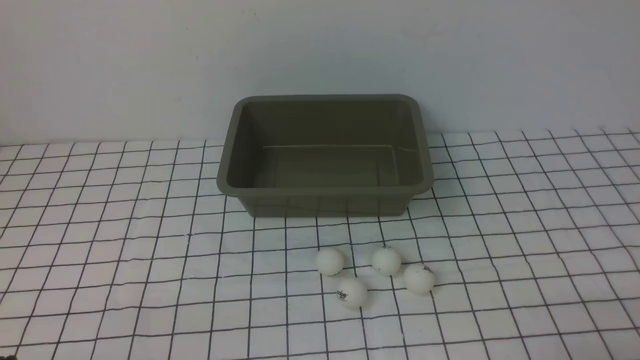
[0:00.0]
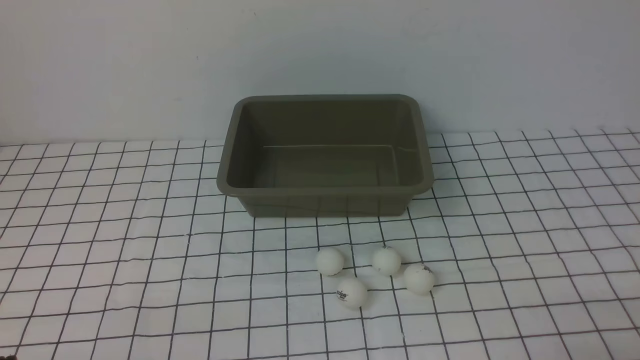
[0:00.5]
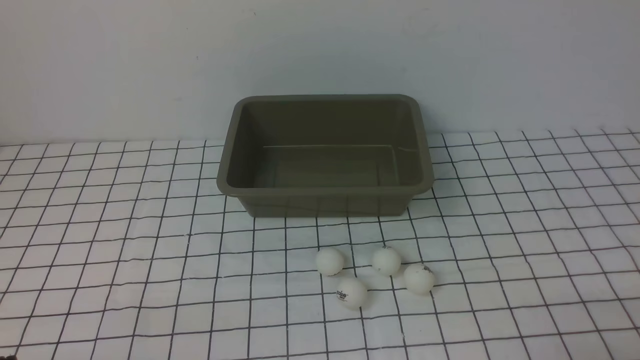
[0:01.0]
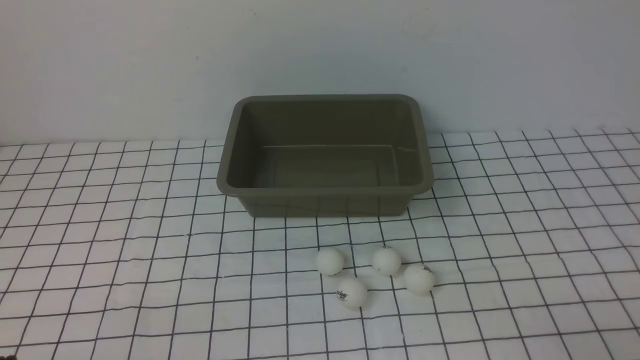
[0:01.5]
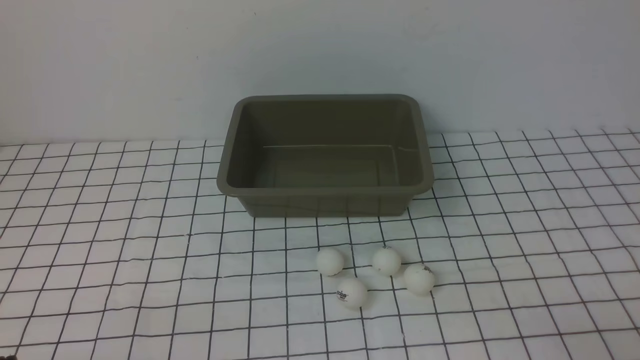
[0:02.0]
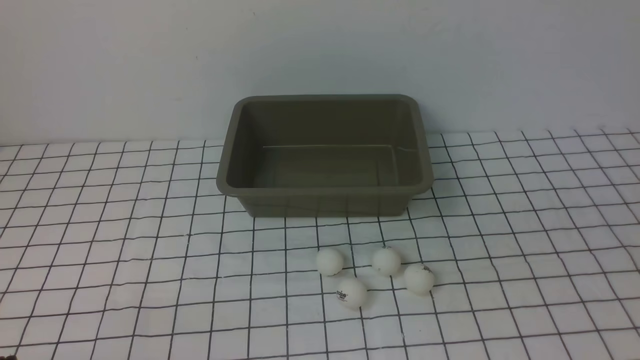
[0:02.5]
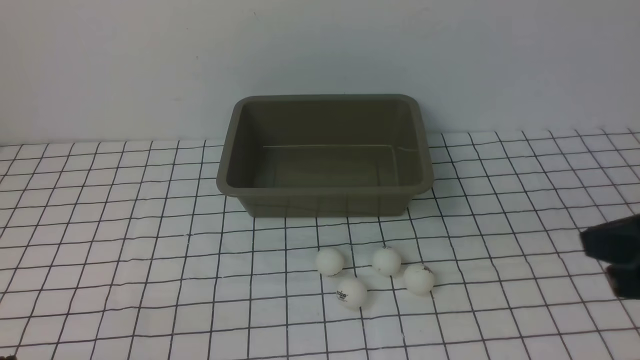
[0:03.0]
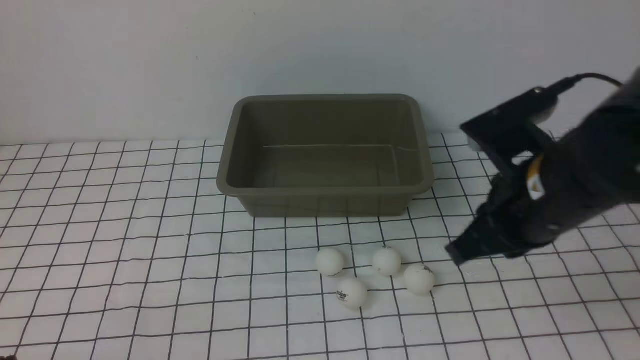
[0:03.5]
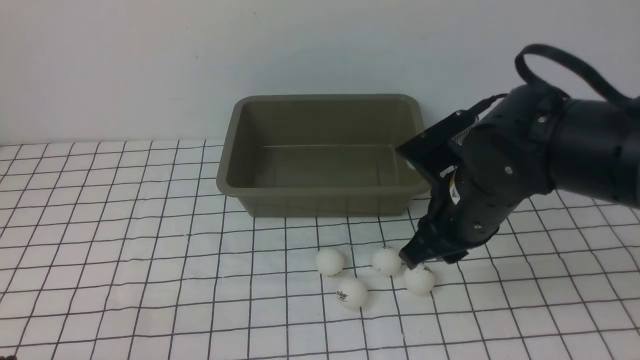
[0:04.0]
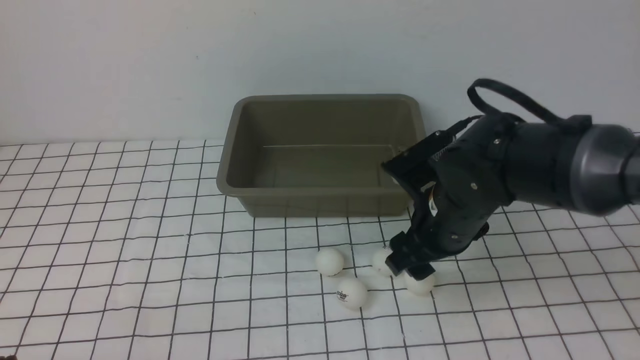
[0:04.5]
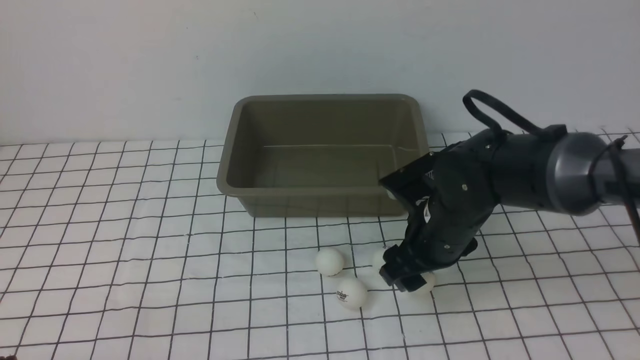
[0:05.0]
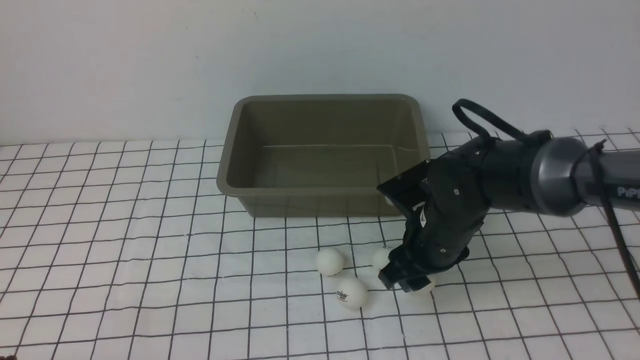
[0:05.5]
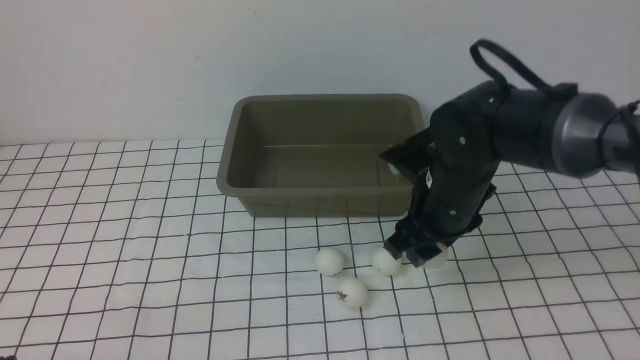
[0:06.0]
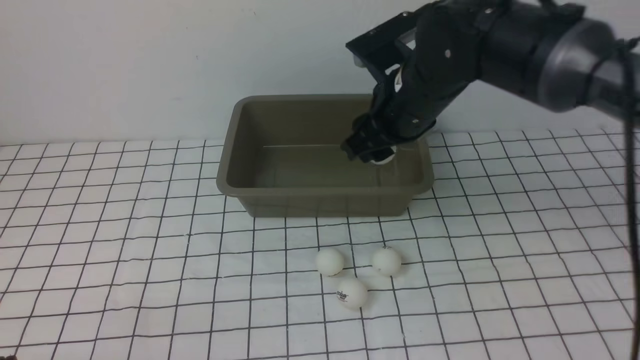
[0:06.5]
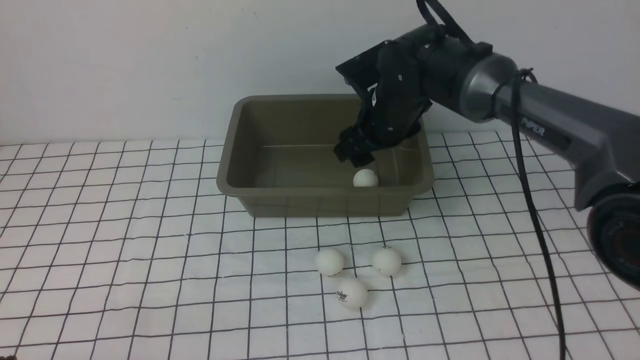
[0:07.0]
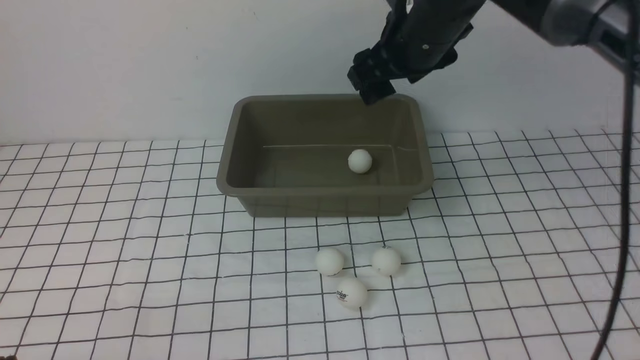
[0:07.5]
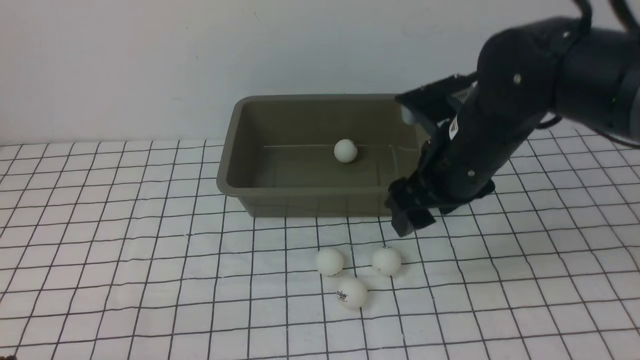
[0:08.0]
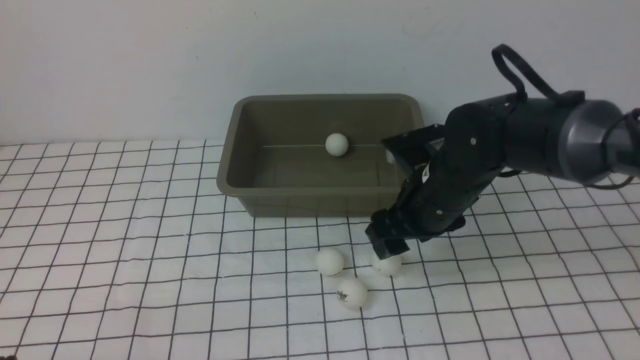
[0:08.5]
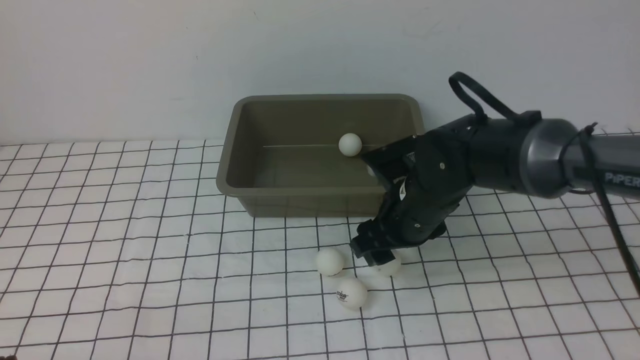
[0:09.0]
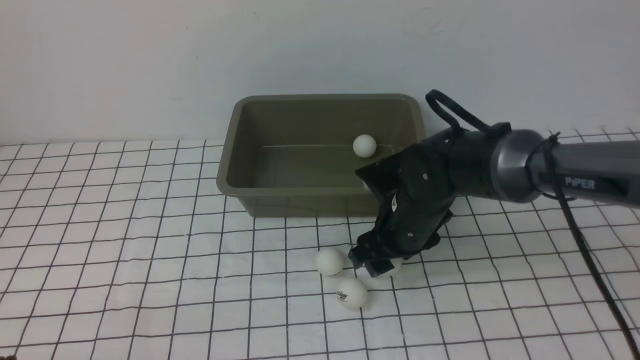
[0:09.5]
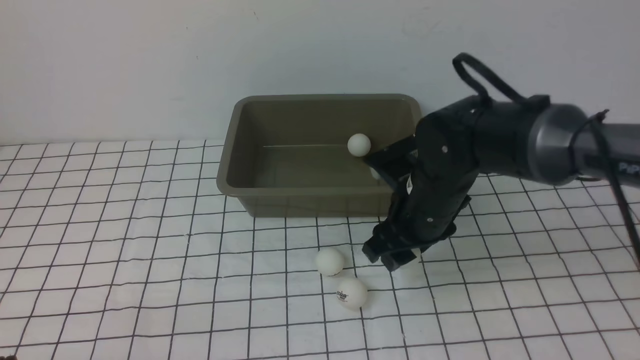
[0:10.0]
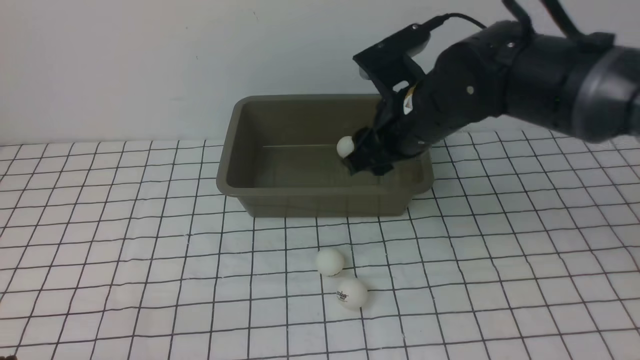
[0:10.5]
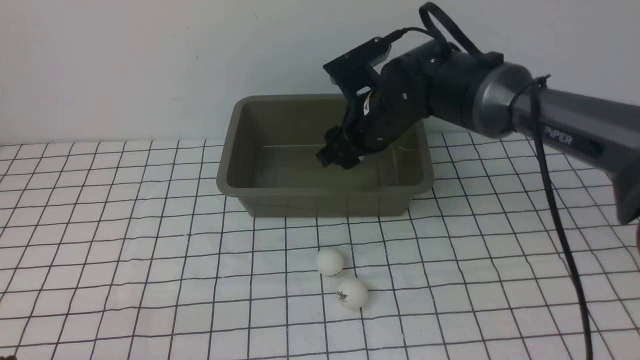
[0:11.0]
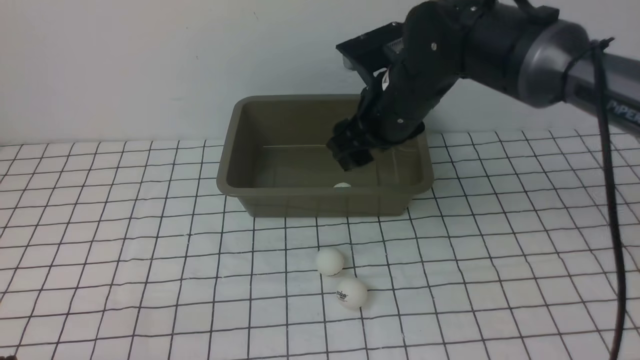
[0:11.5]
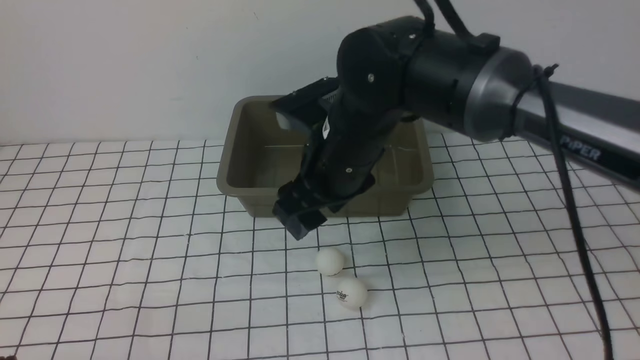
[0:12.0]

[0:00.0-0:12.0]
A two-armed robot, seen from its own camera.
Step, 0:00.0 to 0:05.5: use the right arm to clamp the table tennis ball closest to it.
Step, 0:06.0 to 0:07.0: use the right arm to put the table tennis ball into the box.
Step, 0:07.5 to 0:10.0: use the right arm to clamp the table tennis ball closest to it.
Step, 0:10.5 to 0:11.0: use the right arm to put the table tennis ball into the box.
0:02.0 to 0:04.0: The right gripper is displaced forward and to the left by approximately 30 cm, and opens up.
0:06.0 to 0:08.0: The right gripper travels upward by some 5 cm.
0:08.0 to 0:10.0: The right gripper goes about 5 cm downward.
0:10.0 to 0:12.0: The right gripper moves to the left and upward, some 10 cm, and goes forward and returns, roughly 10 cm each way.

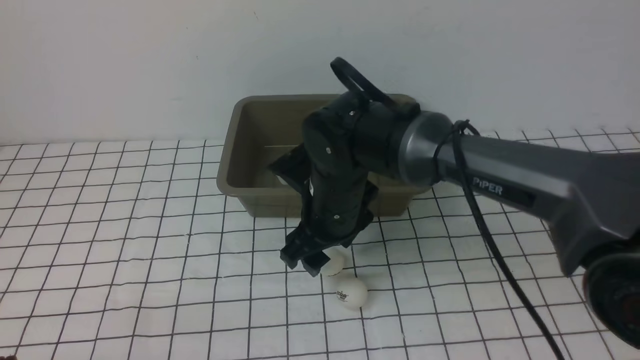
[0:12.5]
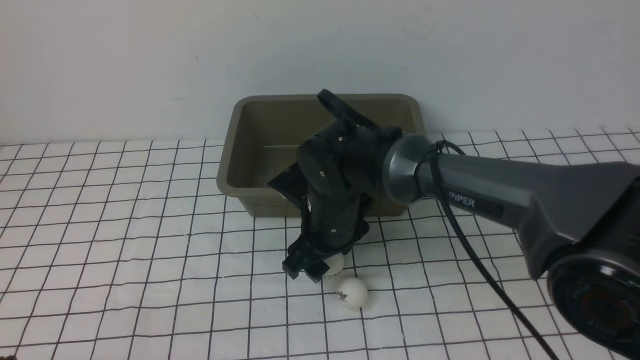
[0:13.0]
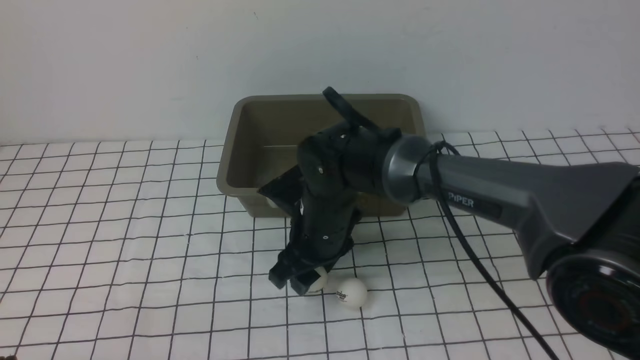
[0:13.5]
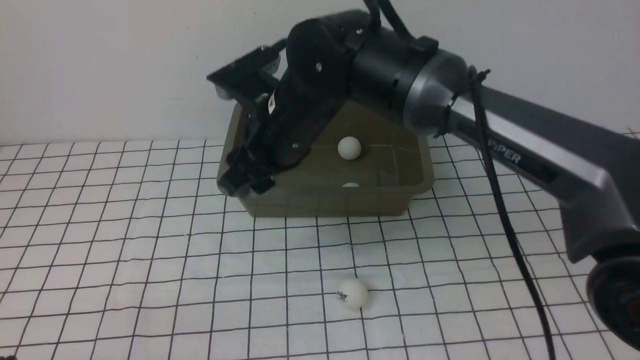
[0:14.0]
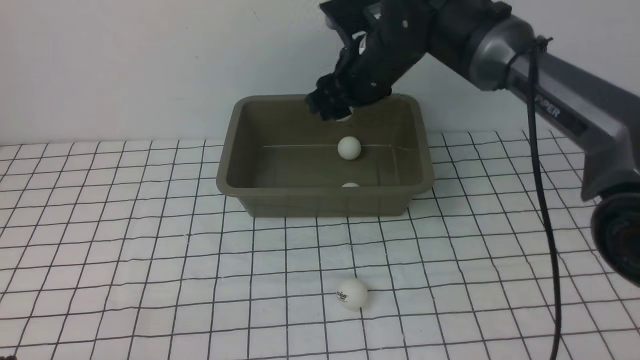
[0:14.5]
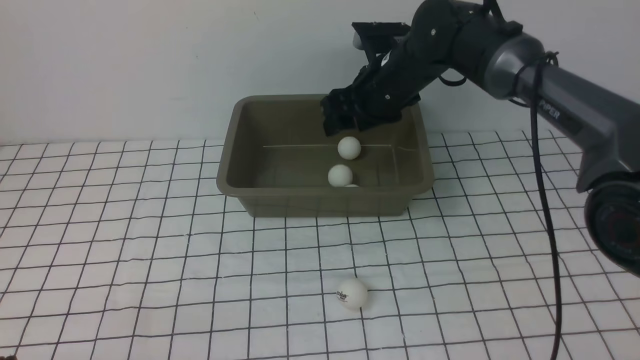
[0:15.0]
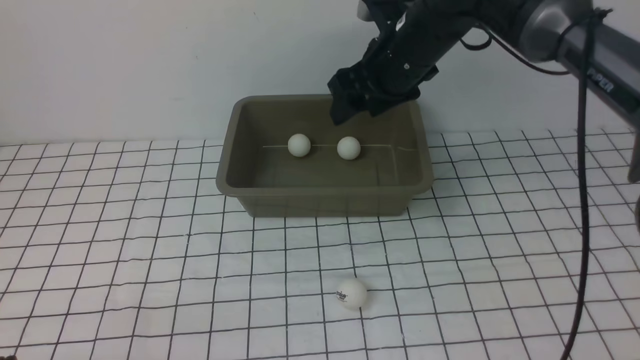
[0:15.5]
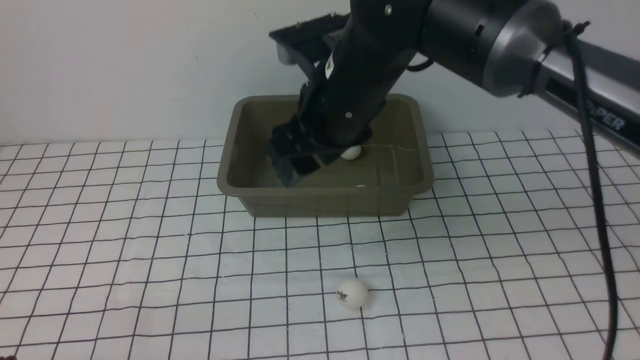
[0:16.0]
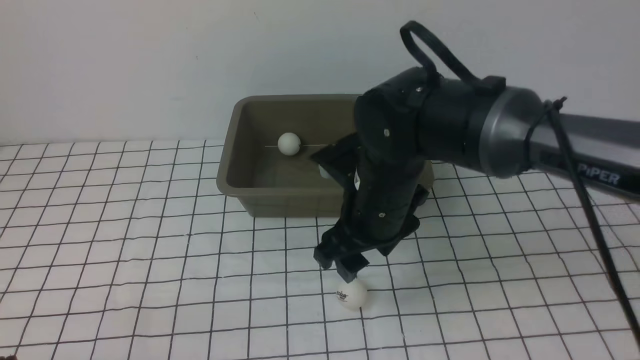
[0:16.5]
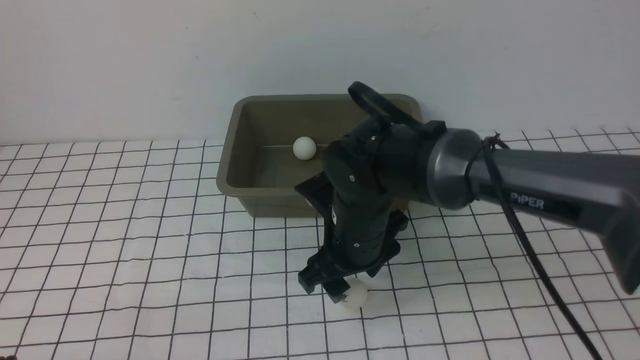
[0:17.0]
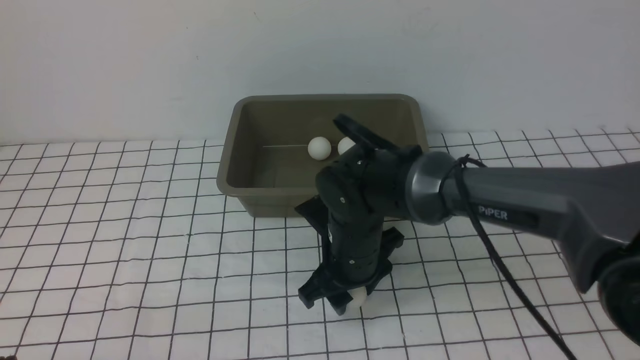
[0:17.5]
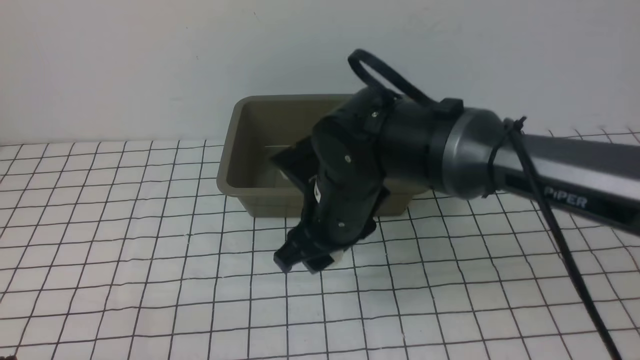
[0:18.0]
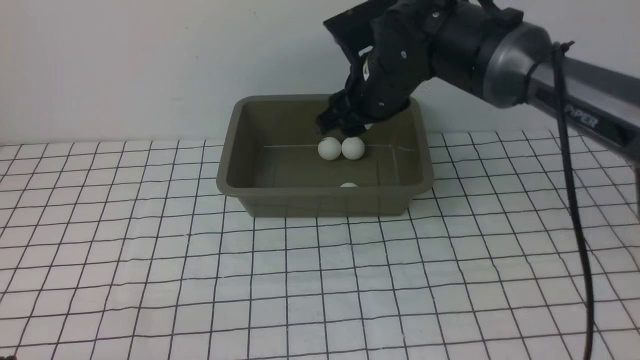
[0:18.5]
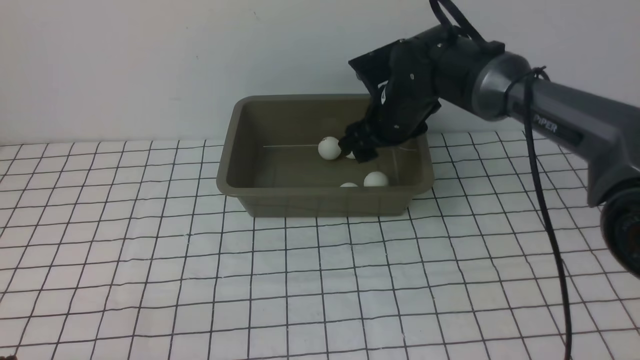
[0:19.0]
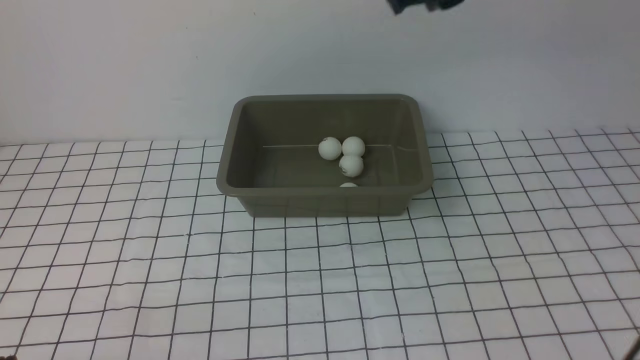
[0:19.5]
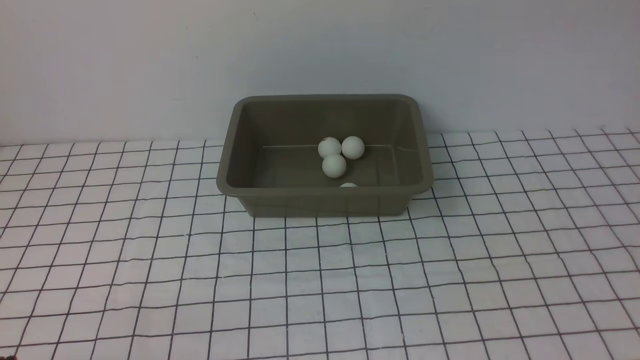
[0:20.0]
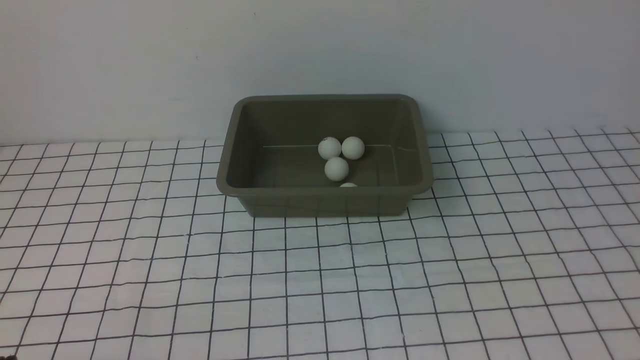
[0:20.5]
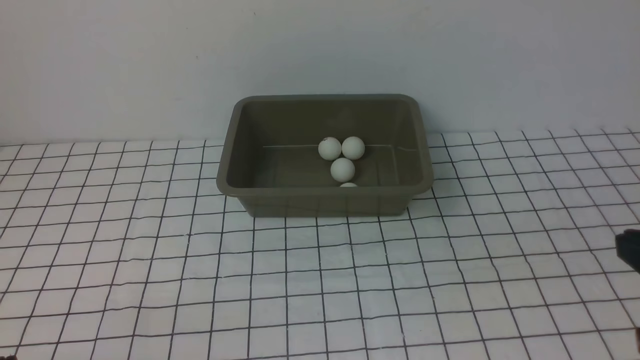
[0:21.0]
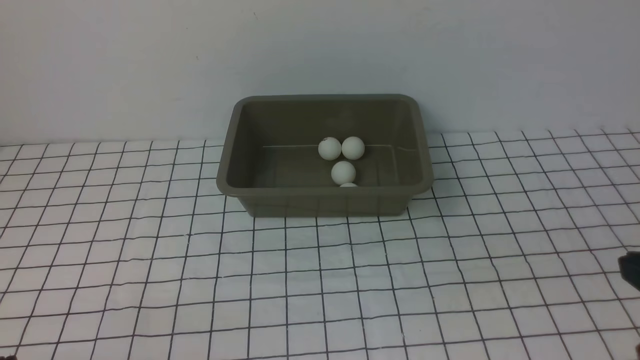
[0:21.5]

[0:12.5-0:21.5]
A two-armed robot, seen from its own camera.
Step, 0:14.0 to 0:15.0: use the right arm to put the table tennis ball into the box.
Step, 0:15.5 to 0:17.5: use the right arm to clamp the table tennis ball closest to it.
Step, 0:18.0 to 0:19.0: use the right arm to put the table tennis ball into the box.
0:12.5 to 0:14.5: The right gripper heads forward and upward, covering roughly 15 cm.
0:14.5 to 0:17.0: The right gripper goes about 15 cm backward and downward.
0:17.0 to 0:19.5: The right gripper heads upward and to the right, covering some 25 cm, and closes up.
0:19.5 to 0:21.5: The right gripper shifts about 35 cm backward, to the right and downward.
